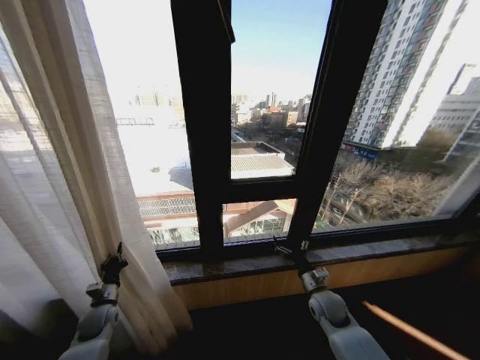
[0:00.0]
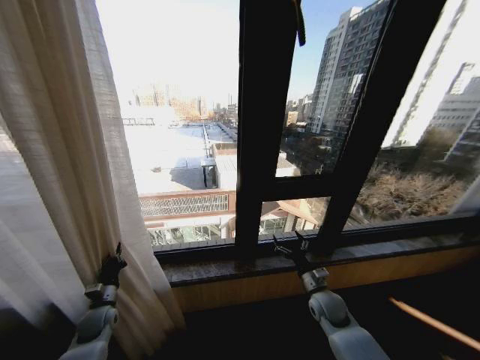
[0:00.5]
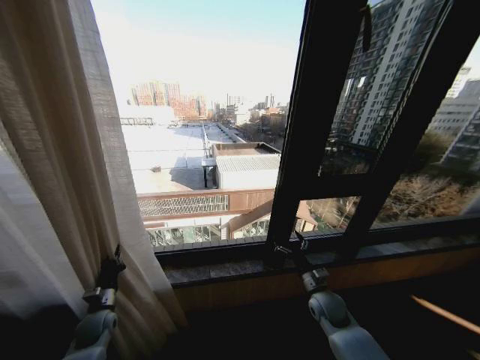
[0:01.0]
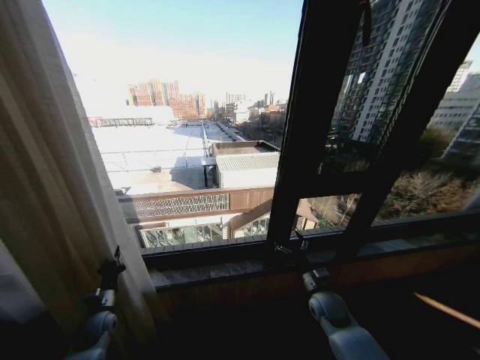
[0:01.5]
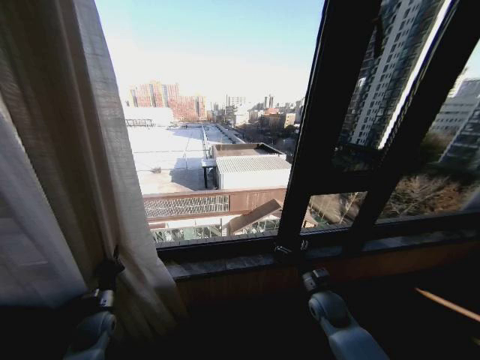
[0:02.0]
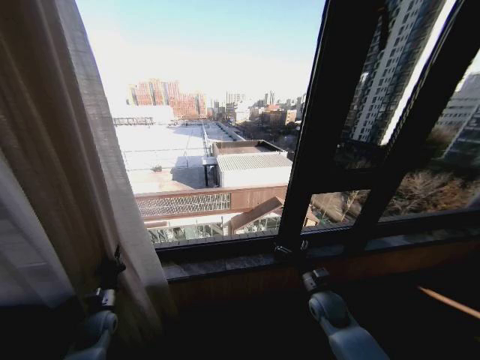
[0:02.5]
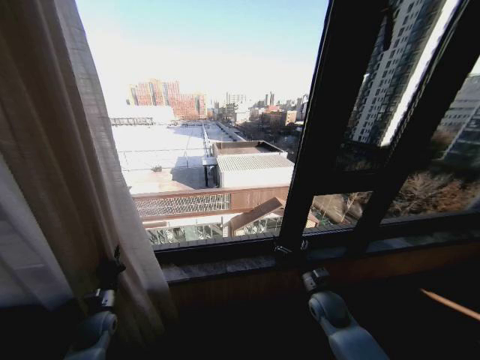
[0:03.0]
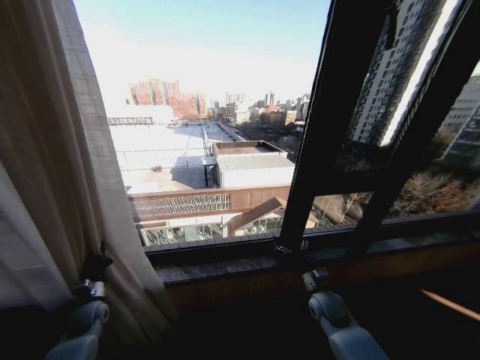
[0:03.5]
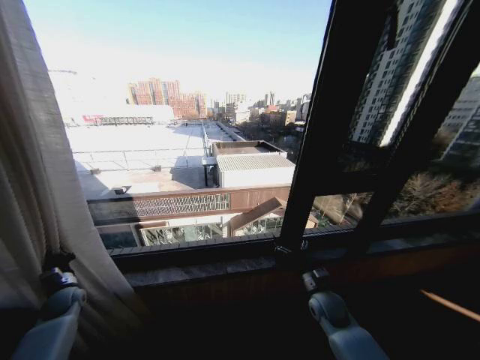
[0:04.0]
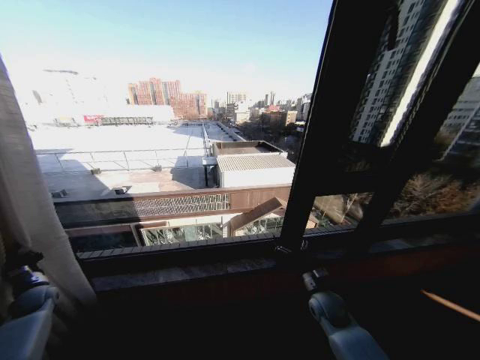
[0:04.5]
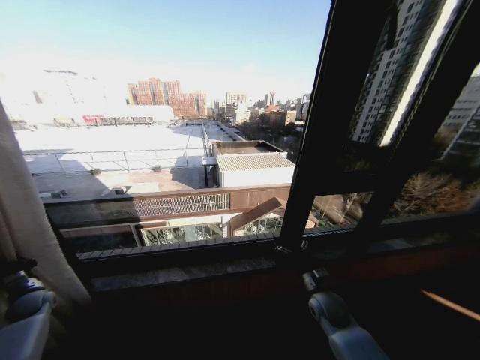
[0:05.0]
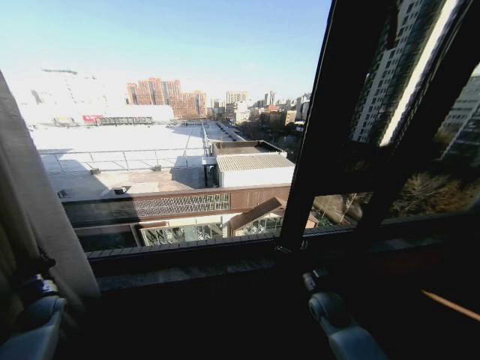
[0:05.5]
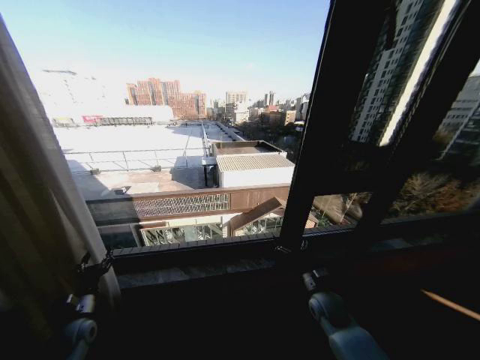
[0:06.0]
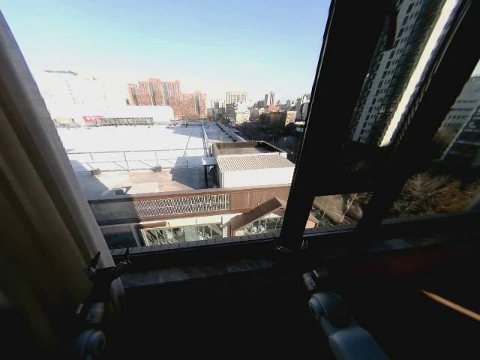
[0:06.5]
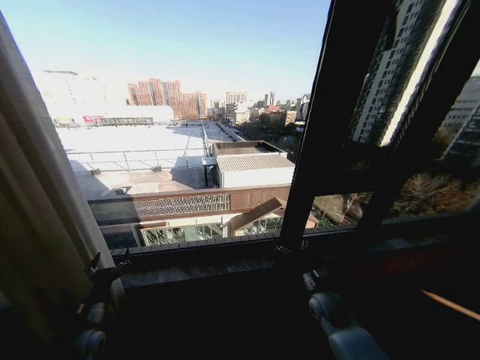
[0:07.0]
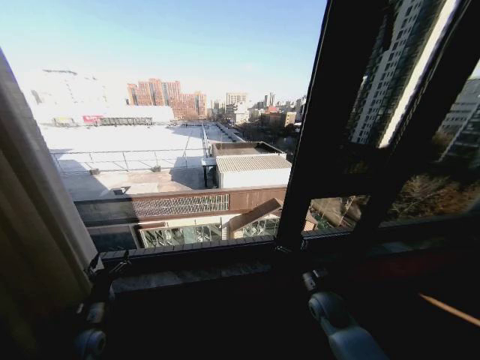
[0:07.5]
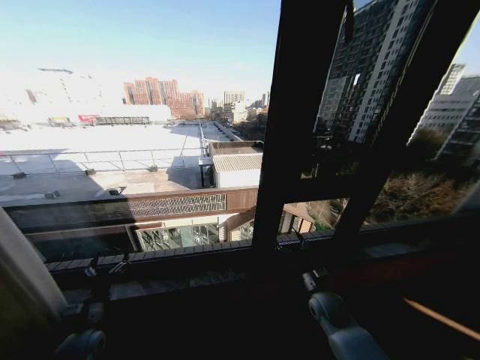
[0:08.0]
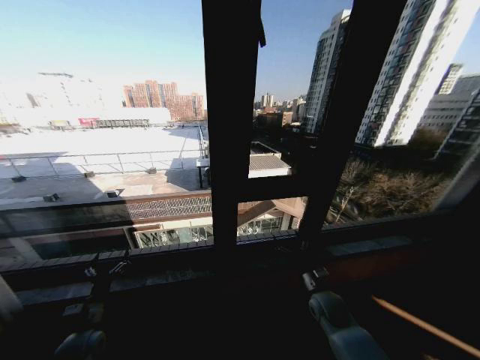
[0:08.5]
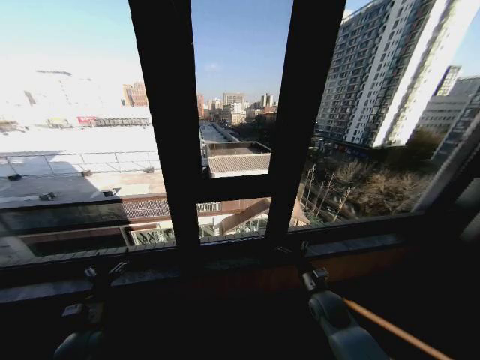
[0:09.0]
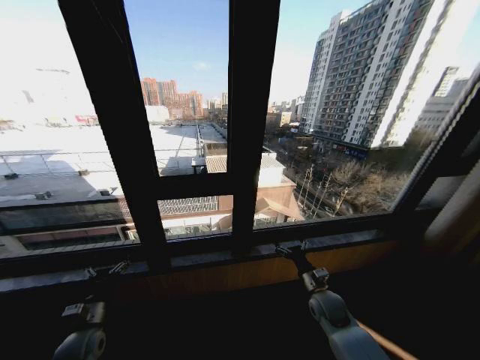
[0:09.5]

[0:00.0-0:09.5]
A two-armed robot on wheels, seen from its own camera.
Task of the whole recording: Open the curtains by pulling them apart, changing their state from closed to fully open.
0:02.0 to 0:04.0: The left gripper shifts approximately 15 cm to the left and forward.
0:05.5 to 0:07.5: The left gripper goes about 20 cm to the right and backward, and opens up.
